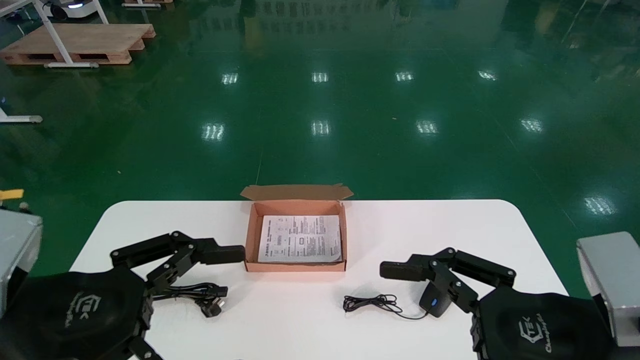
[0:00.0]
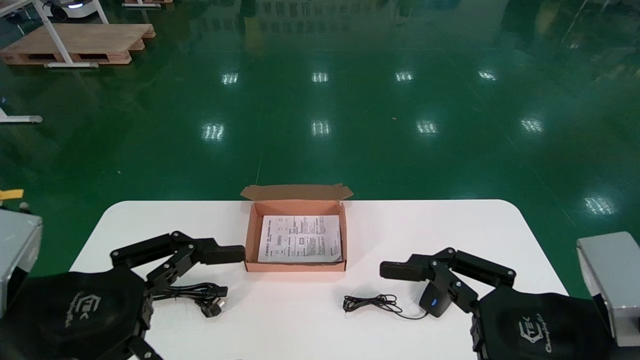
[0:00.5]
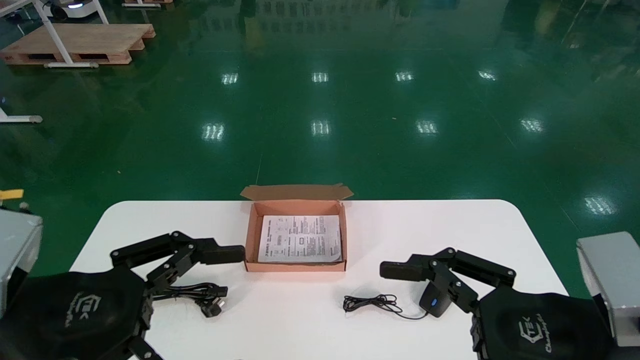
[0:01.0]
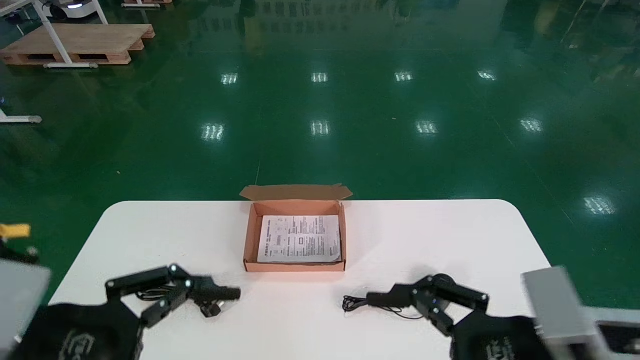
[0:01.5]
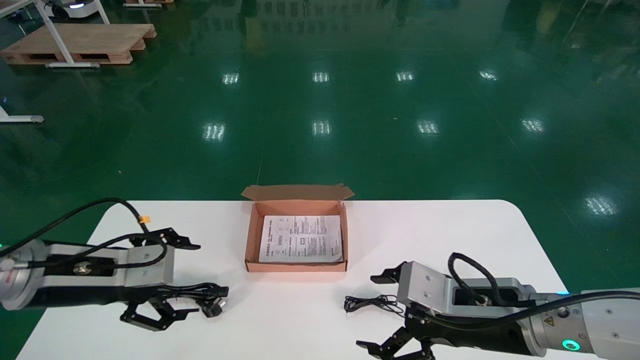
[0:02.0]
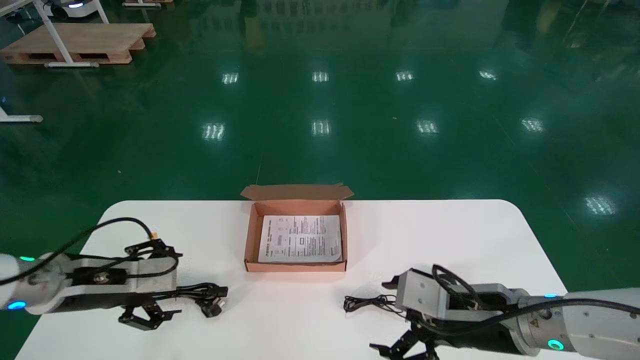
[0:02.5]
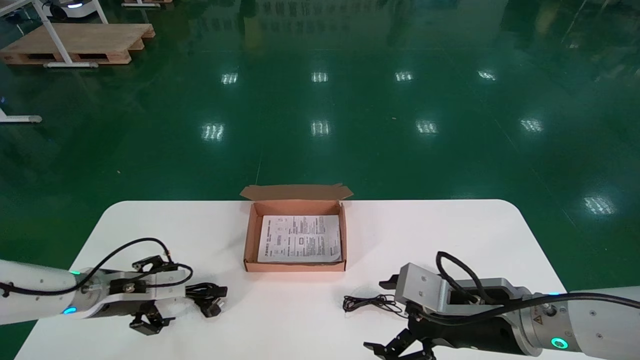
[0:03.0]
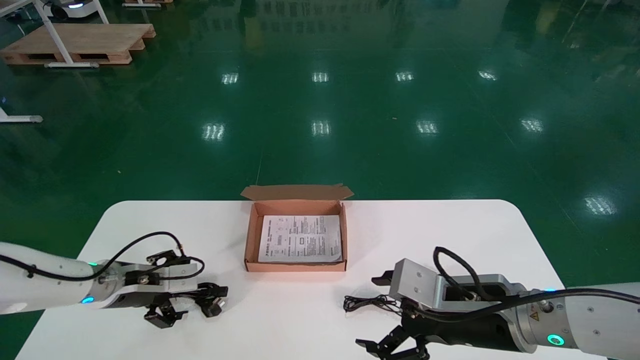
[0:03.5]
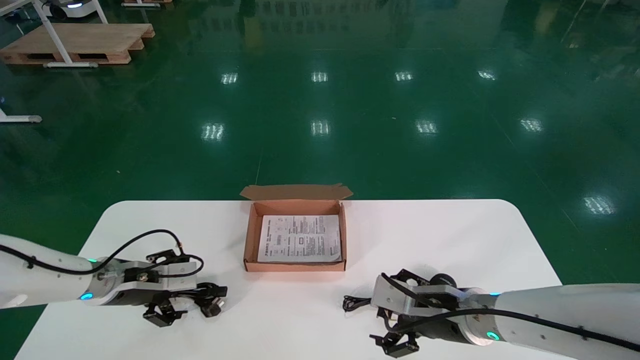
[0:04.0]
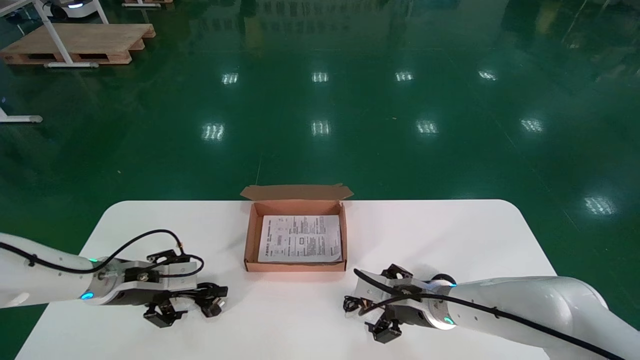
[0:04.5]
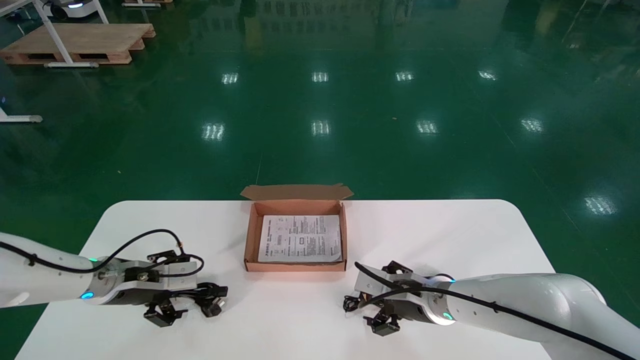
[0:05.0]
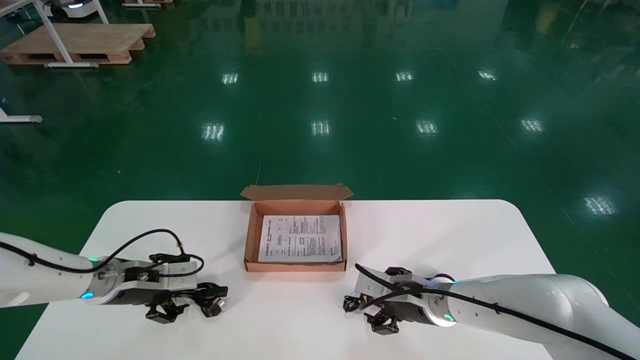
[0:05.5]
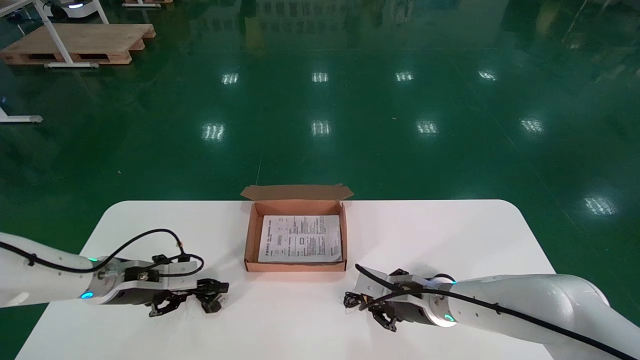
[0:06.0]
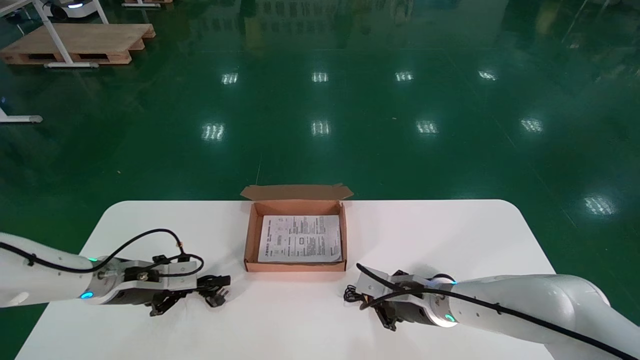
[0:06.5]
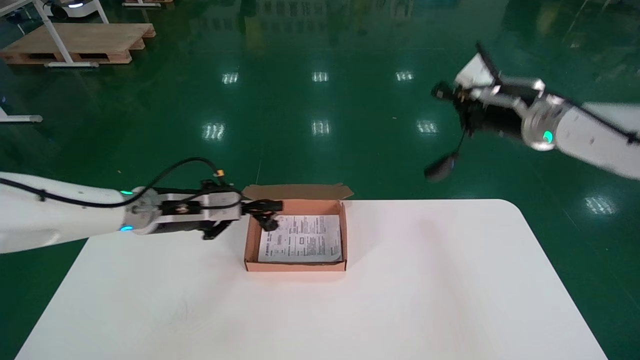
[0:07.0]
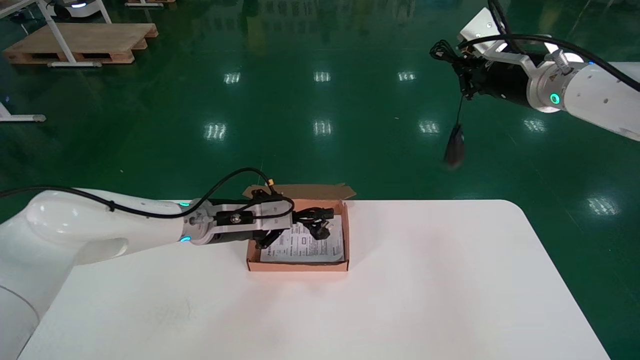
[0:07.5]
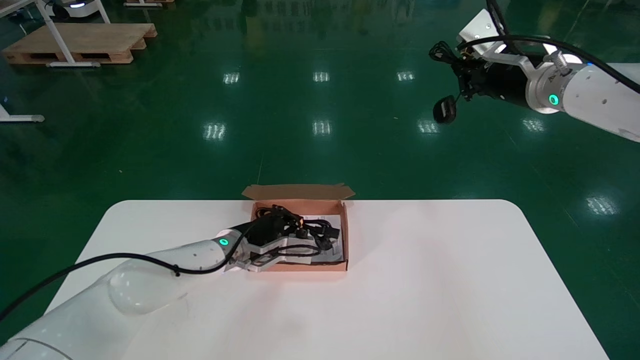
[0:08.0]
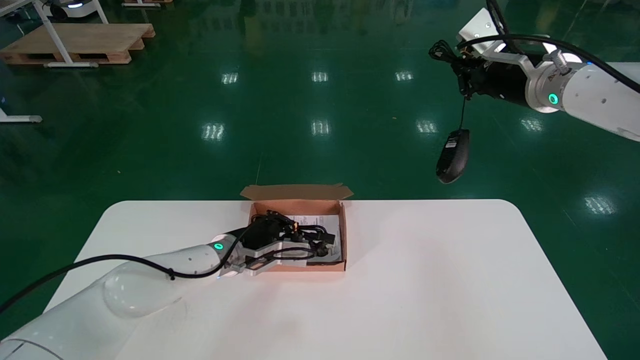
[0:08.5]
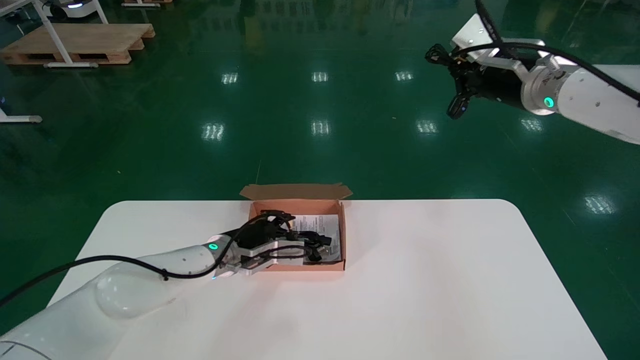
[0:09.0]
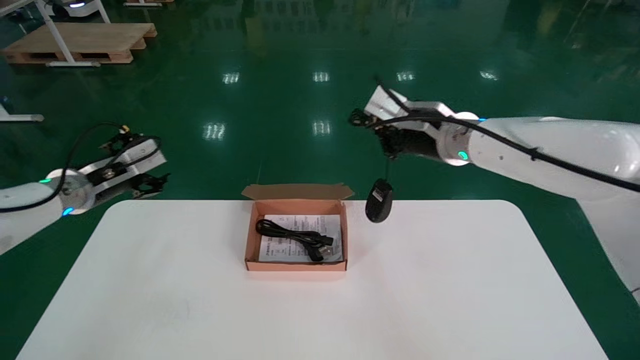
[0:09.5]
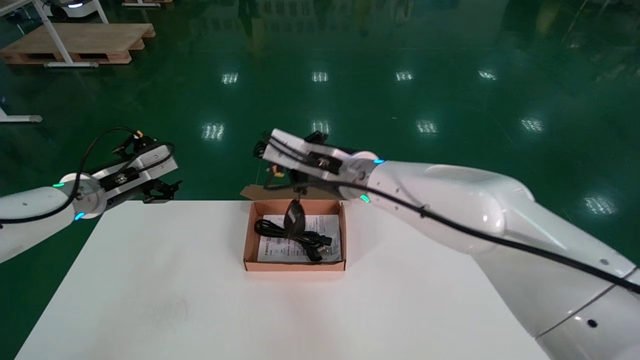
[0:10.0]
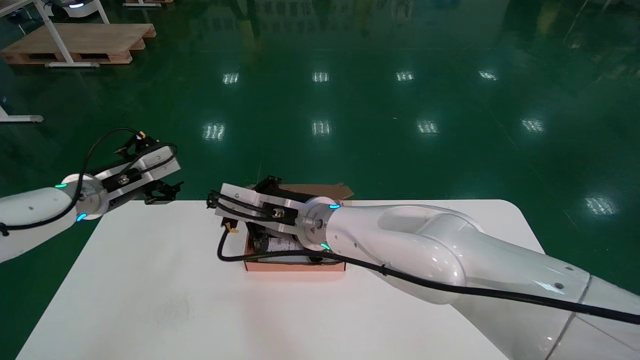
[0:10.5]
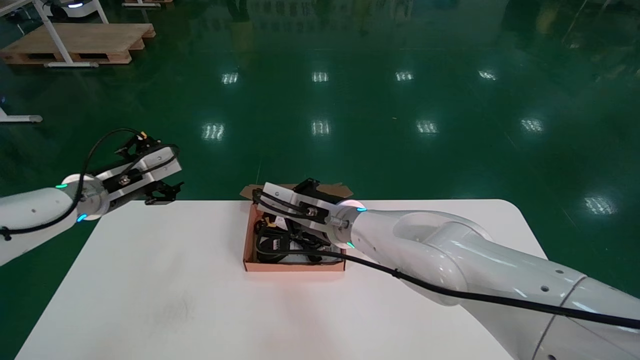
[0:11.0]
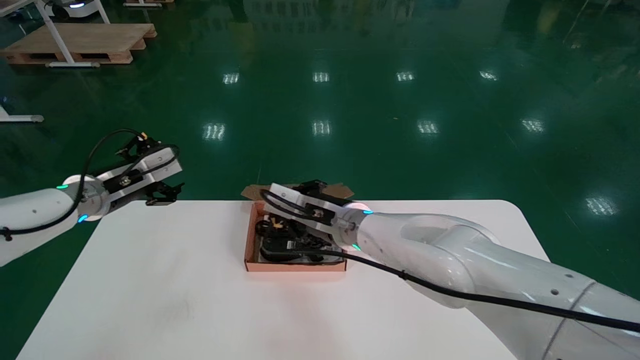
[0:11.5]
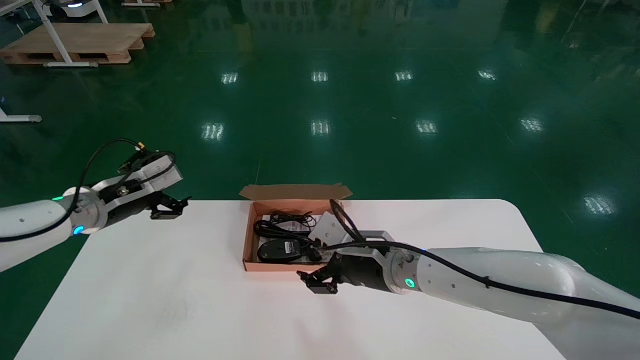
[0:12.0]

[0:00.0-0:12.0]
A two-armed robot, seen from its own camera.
Step, 0:01.5 to 0:06.0: Simultaneously pick up the mouse and power cord from the accessory packaging area.
Step, 0:06.5 to 0:11.0: Place the mouse and power cord into the box.
0:00.0 to 0:02.0: The left gripper goes roughly 10 cm forward, while the right gripper travels forward and downward by approximately 15 cm.
0:02.0 to 0:04.0: The left gripper travels forward and downward by roughly 15 cm; the right gripper travels forward by some 10 cm.
0:04.0 to 0:06.0: The left gripper closes up. Meanwhile the right gripper heads forward, covering some 5 cm, and closes.
0:06.0 to 0:08.0: The right gripper is displaced upward by approximately 35 cm. Meanwhile the left gripper moves to the right, some 20 cm.
0:08.0 to 0:10.0: The right gripper shifts approximately 30 cm to the left and downward. The left gripper heads to the left and upward, covering roughly 20 cm, and opens up.
0:10.0 to 0:12.0: The right gripper goes approximately 15 cm downward and to the right, and opens.

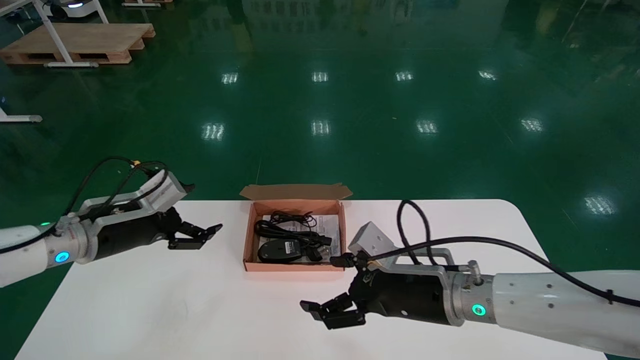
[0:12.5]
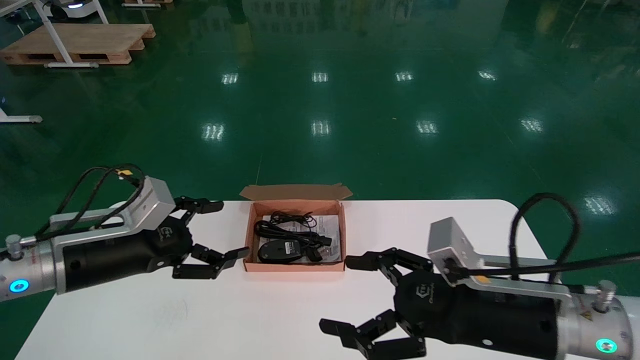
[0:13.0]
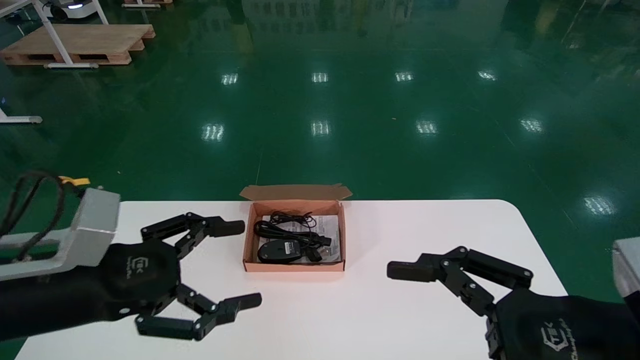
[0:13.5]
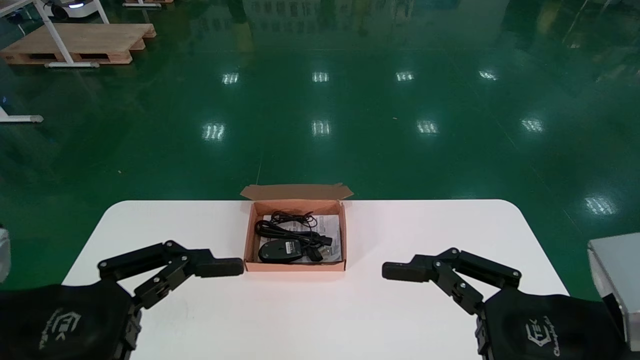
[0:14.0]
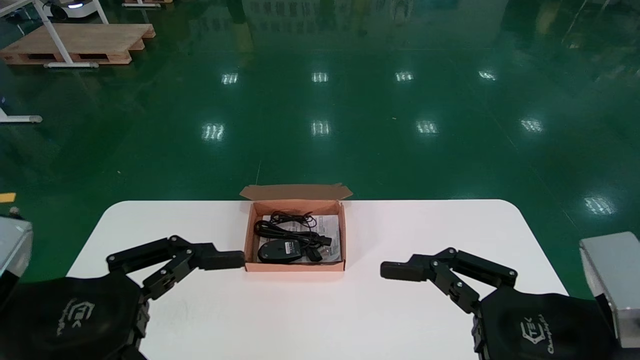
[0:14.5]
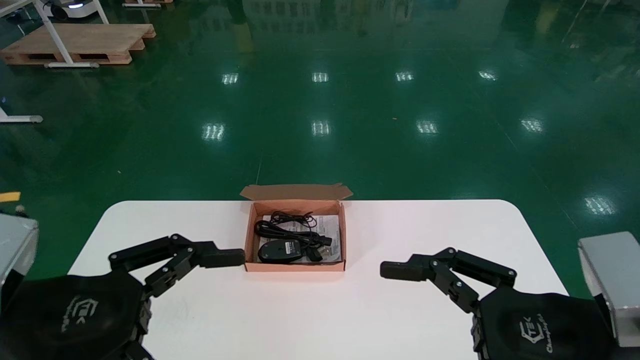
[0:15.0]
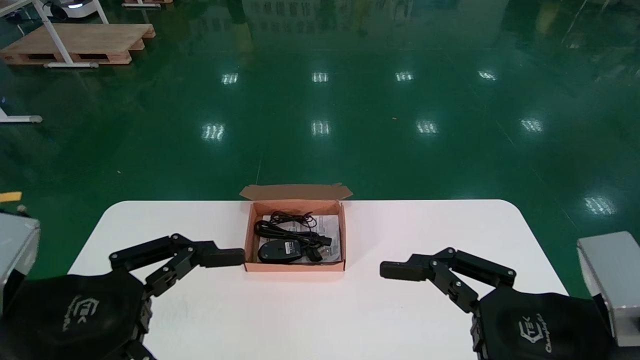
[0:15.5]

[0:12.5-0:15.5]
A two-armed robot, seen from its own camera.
0:12.5 to 0:14.0: The left gripper travels backward by some 20 cm; the right gripper travels backward and to the right by some 20 cm.
0:14.0 to 0:15.5: Both grippers stay about where they are.
